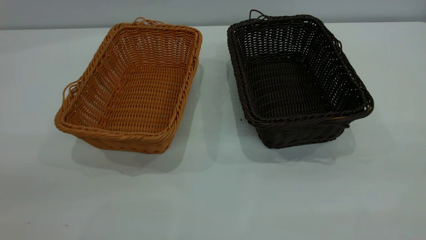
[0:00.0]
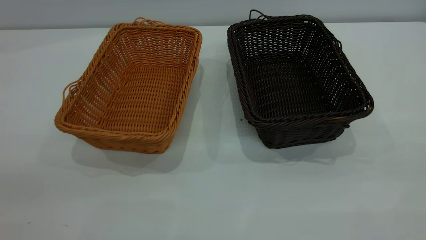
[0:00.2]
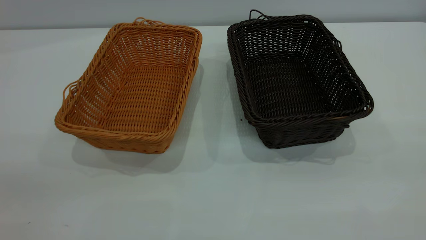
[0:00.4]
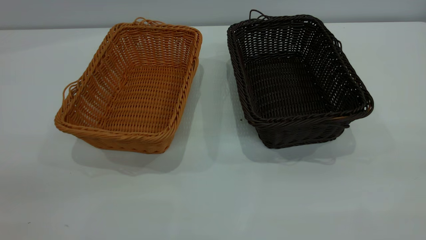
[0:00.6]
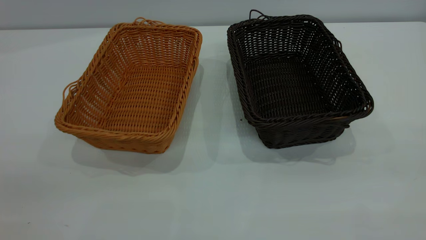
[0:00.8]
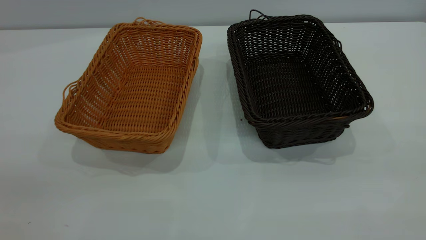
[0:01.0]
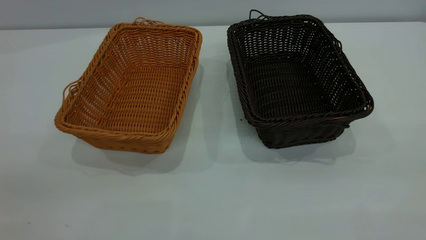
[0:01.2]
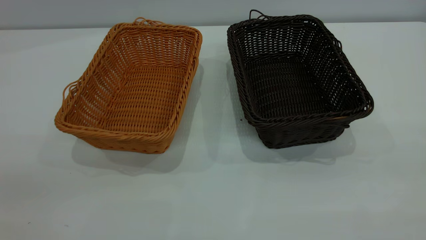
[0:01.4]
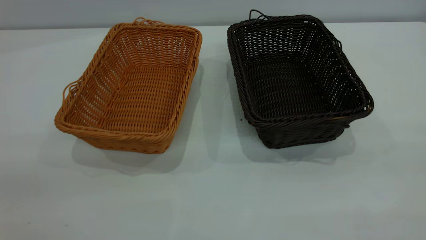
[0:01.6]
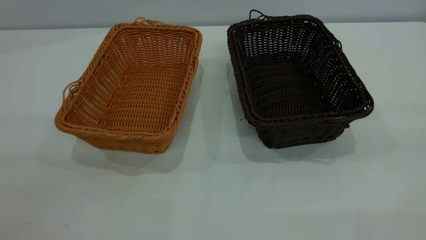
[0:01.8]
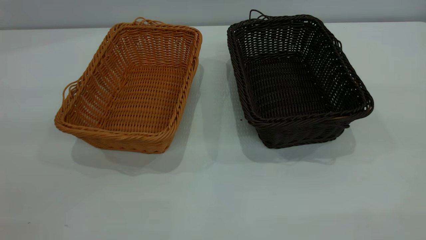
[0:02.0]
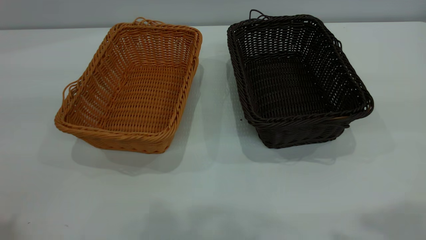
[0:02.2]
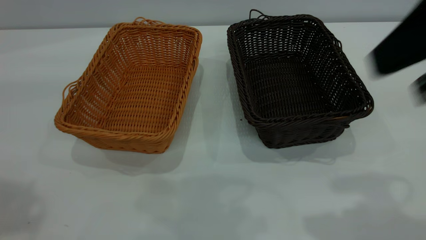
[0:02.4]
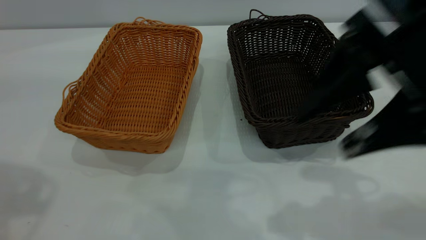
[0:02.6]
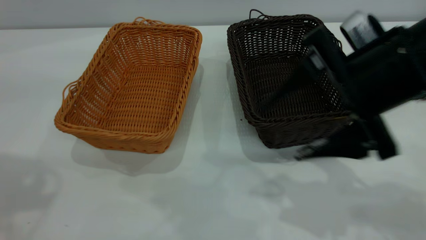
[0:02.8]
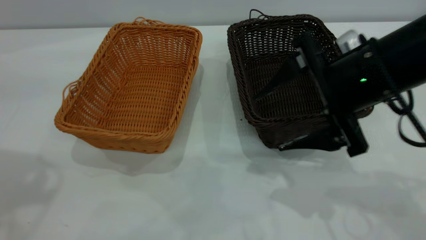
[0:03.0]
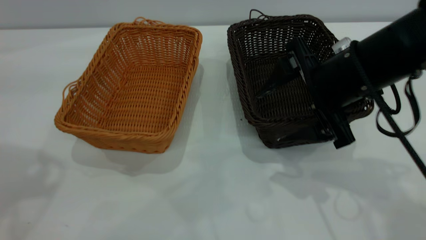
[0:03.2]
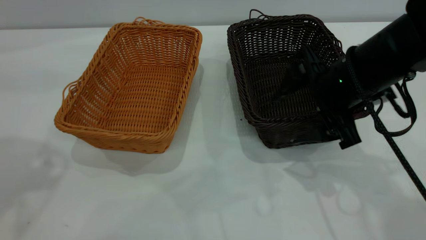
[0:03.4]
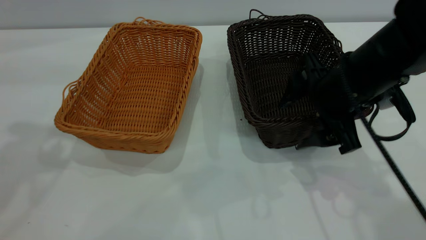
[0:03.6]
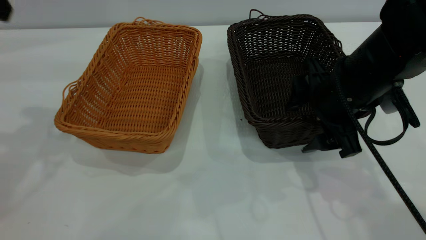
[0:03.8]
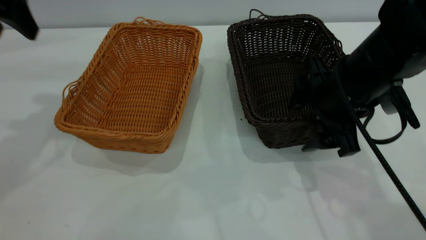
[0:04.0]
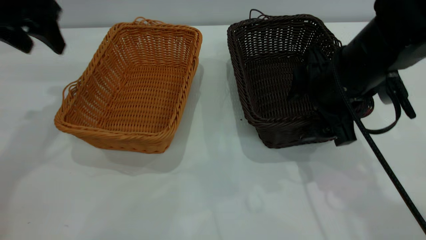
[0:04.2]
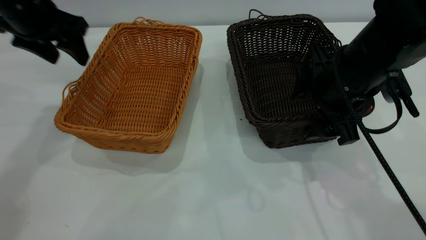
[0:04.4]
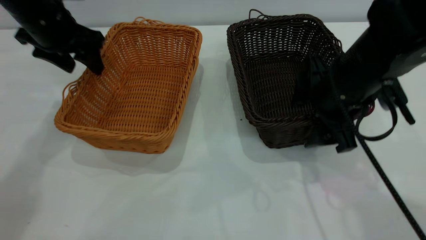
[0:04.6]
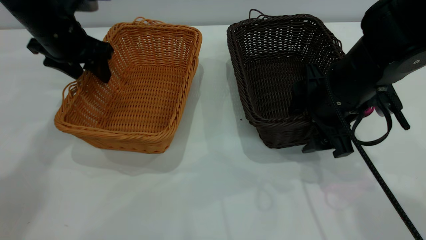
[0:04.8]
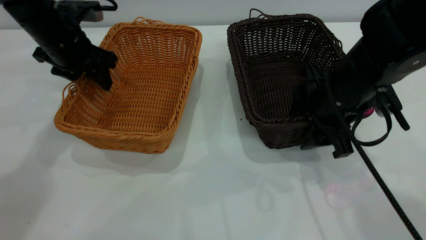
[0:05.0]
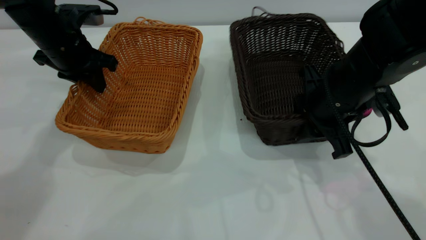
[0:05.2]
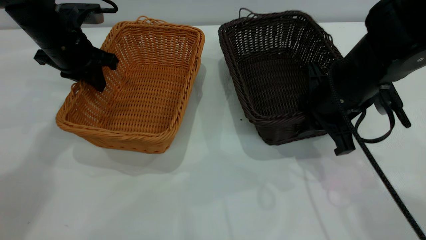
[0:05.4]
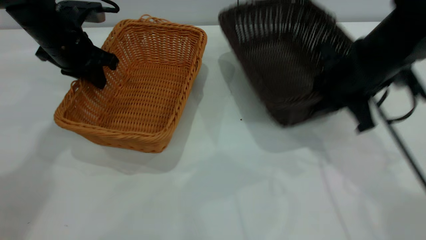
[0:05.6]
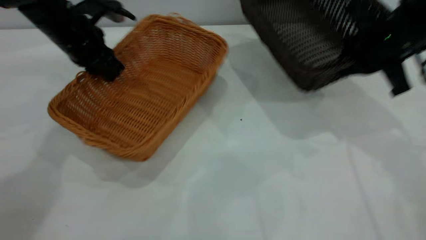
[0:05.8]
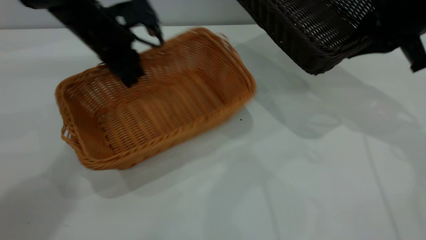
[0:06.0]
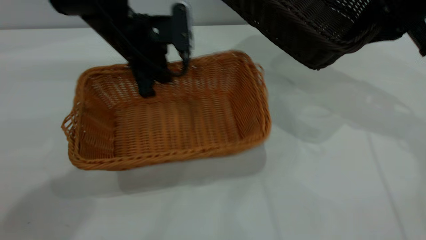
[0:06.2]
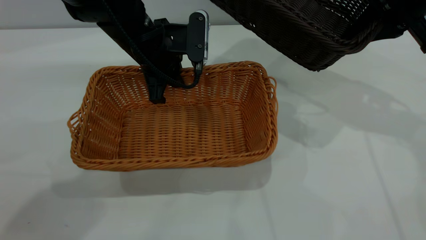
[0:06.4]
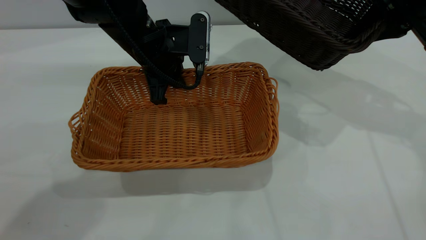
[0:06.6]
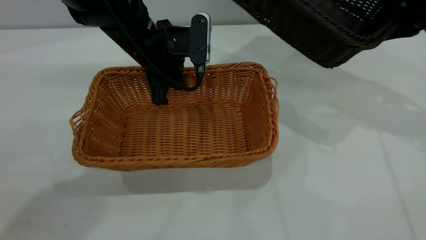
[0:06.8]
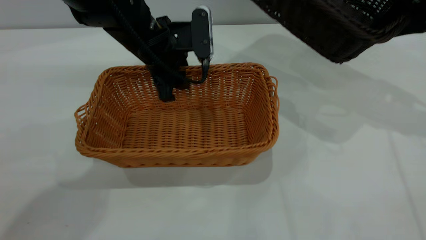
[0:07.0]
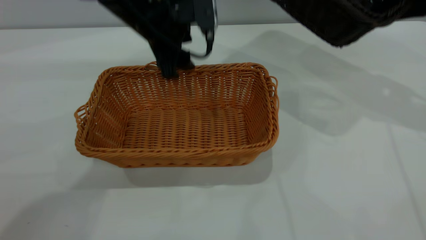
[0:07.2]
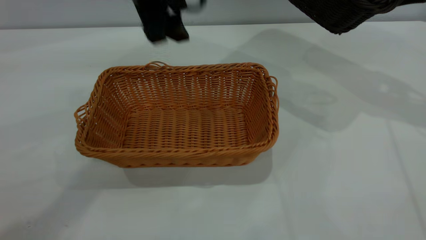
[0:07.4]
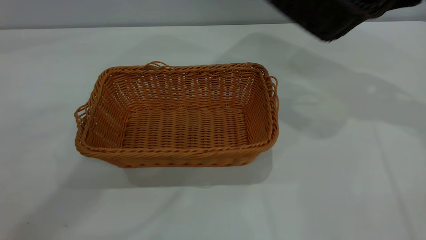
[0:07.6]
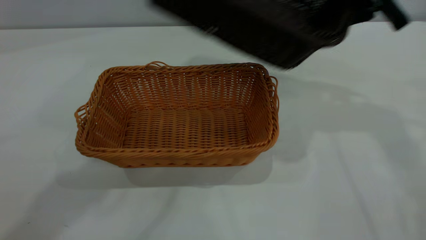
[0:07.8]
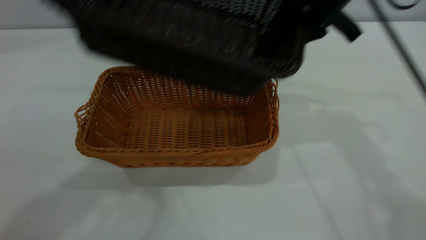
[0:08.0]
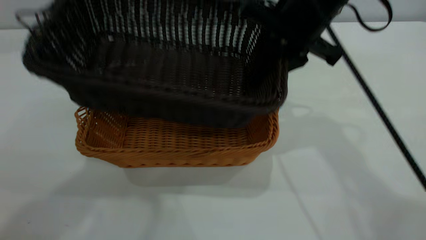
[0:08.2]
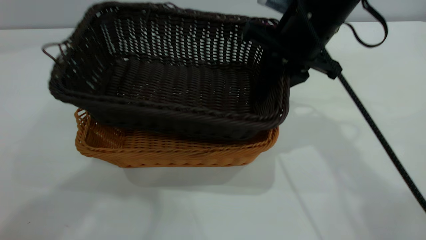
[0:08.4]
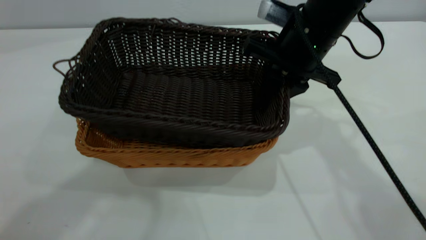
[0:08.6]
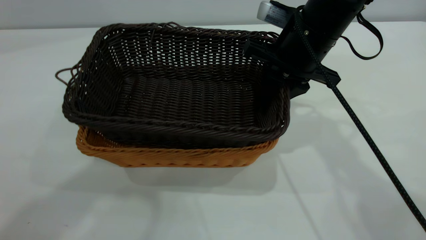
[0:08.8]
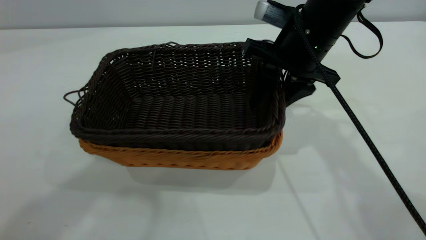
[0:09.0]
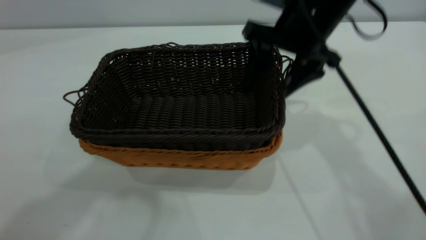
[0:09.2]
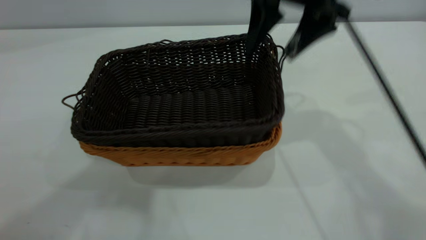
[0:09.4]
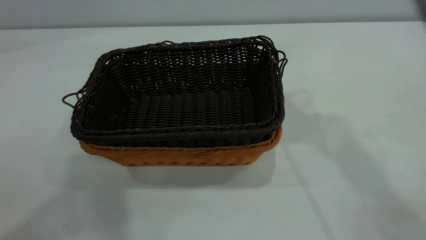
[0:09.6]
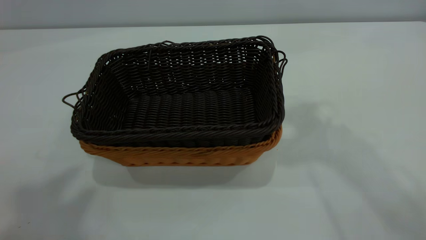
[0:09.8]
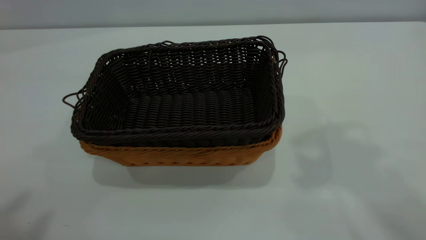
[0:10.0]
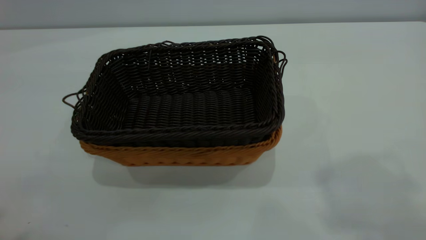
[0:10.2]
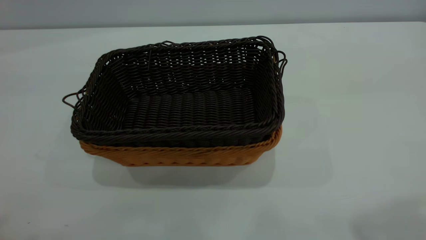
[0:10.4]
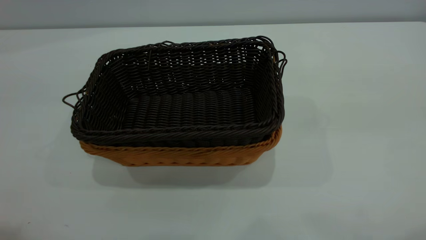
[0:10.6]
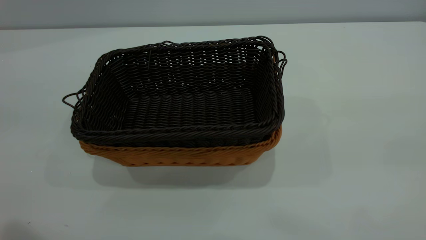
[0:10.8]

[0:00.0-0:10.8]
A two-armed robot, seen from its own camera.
Task of the whole recording: the left gripper grasp the brown basket and place it in the center of the table, the right gripper grasp the black basket and place it inside the brown one.
Step, 0:00.0 to 0:05.6: Pick up the light basket with the right gripper.
Step, 0:05.8 to 0:07.2: Place the light-colored basket in the center.
Step, 0:07.4 to 0:09.4: Place the dark basket on top of the light basket.
0:00.0 to 0:01.6: Neither gripper changes place.
0:01.6 to 0:03.0: The right gripper is displaced forward, downward and to the left by about 35 cm.
0:03.0 to 0:04.6: The right gripper shifts about 5 cm downward; the left gripper shifts approximately 25 cm forward and downward.
0:04.6 to 0:06.2: The right gripper goes approximately 15 cm to the right, upward and forward, and closes; the left gripper moves to the right, some 15 cm, and closes.
0:06.2 to 0:07.8: The left gripper travels upward by approximately 35 cm, and opens its fingers; the right gripper shifts some 10 cm to the left.
0:07.8 to 0:09.2: The right gripper is displaced to the left by about 5 cm, and opens up.
0:09.2 to 0:10.8: The left gripper goes about 20 cm backward, to the left and downward, while the right gripper heads backward, to the right and upward, covering about 35 cm.
